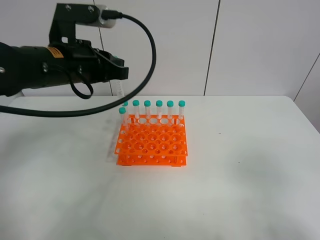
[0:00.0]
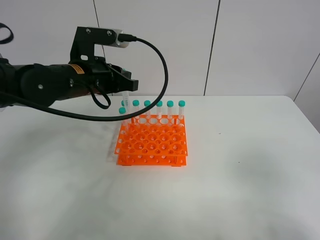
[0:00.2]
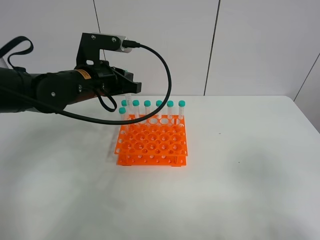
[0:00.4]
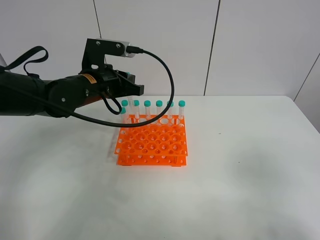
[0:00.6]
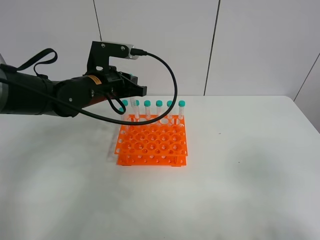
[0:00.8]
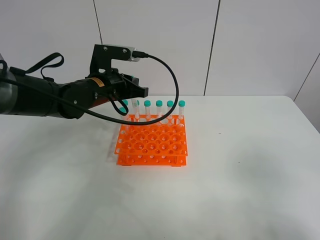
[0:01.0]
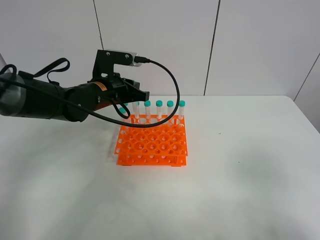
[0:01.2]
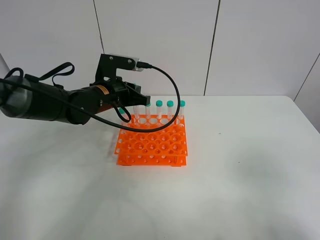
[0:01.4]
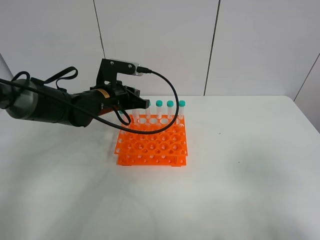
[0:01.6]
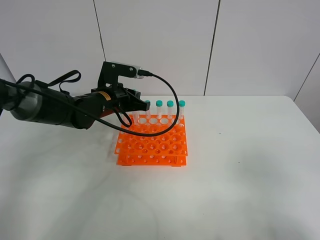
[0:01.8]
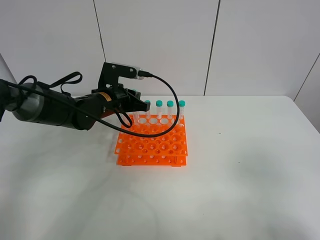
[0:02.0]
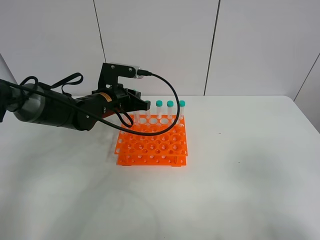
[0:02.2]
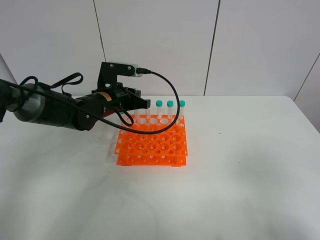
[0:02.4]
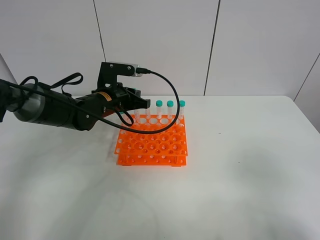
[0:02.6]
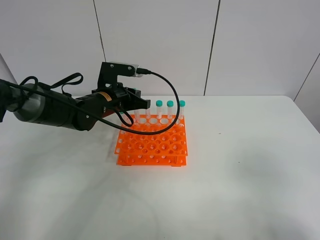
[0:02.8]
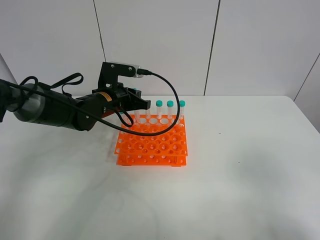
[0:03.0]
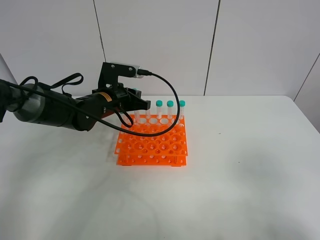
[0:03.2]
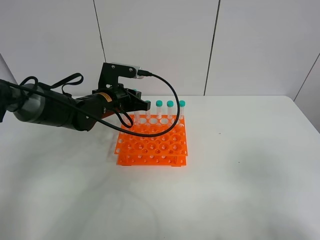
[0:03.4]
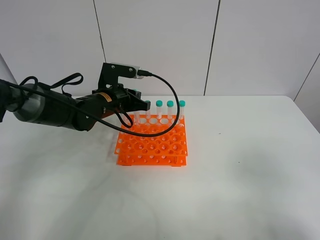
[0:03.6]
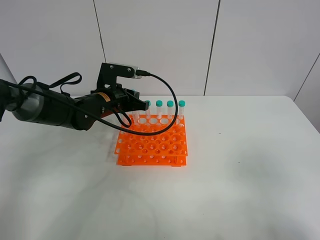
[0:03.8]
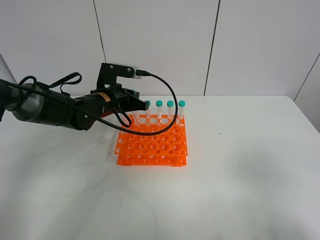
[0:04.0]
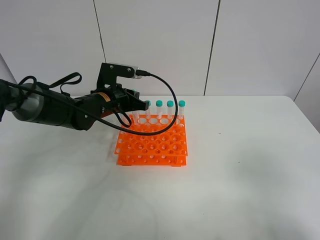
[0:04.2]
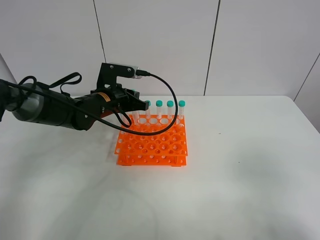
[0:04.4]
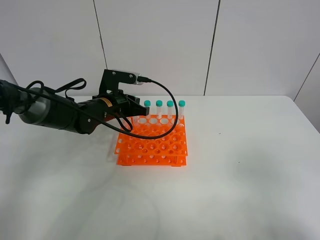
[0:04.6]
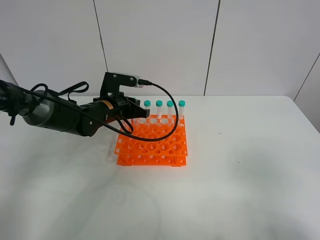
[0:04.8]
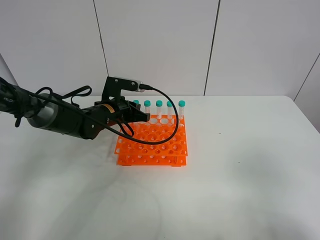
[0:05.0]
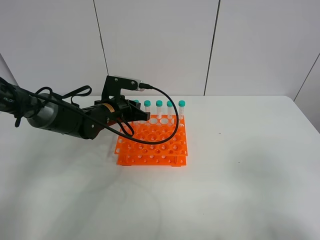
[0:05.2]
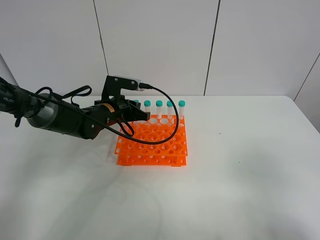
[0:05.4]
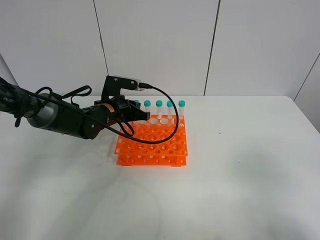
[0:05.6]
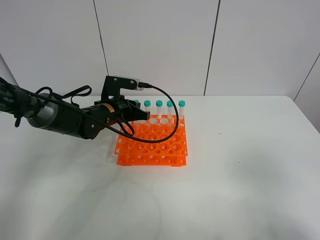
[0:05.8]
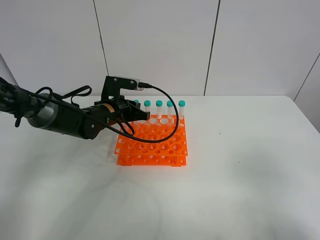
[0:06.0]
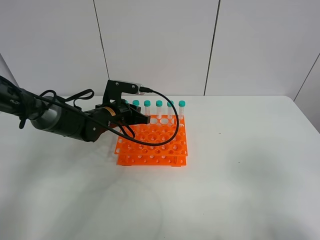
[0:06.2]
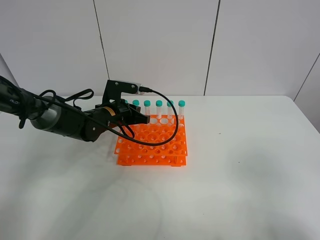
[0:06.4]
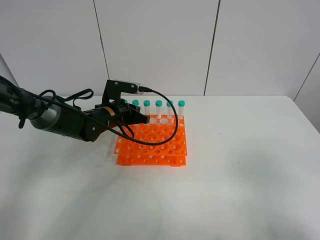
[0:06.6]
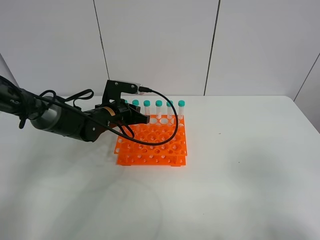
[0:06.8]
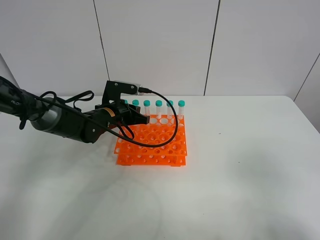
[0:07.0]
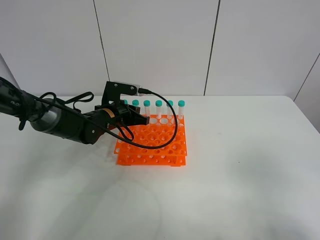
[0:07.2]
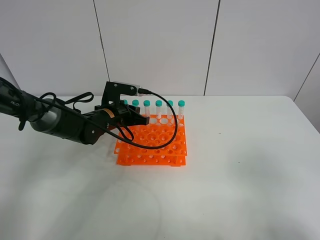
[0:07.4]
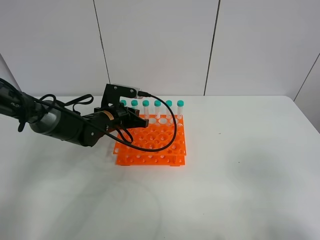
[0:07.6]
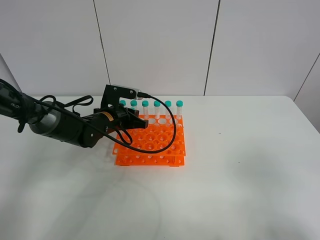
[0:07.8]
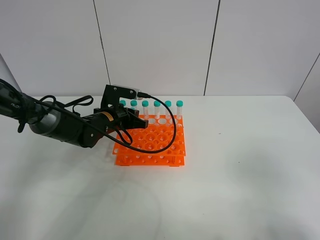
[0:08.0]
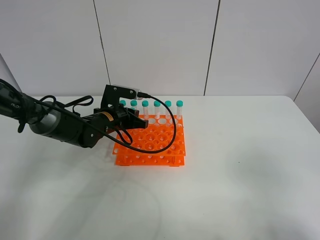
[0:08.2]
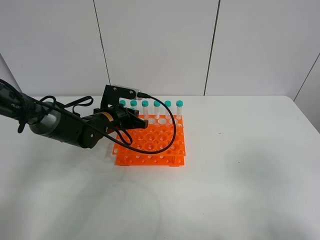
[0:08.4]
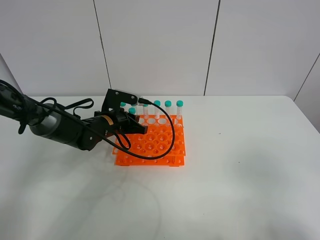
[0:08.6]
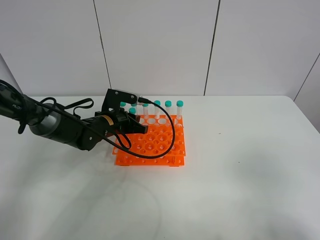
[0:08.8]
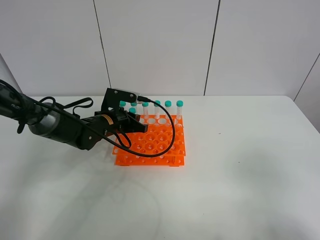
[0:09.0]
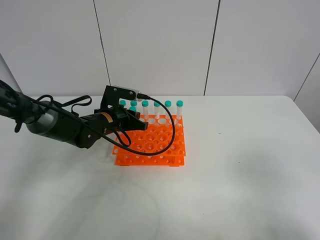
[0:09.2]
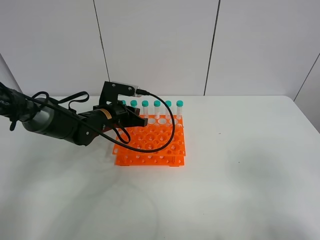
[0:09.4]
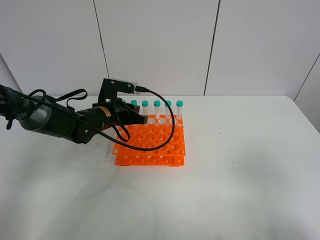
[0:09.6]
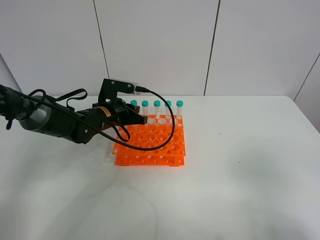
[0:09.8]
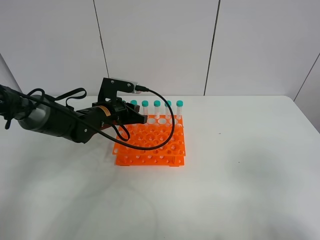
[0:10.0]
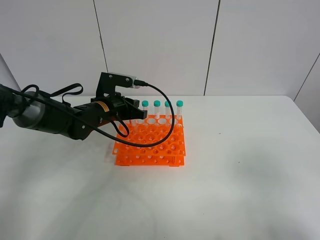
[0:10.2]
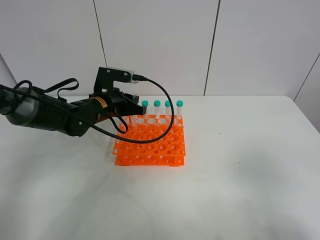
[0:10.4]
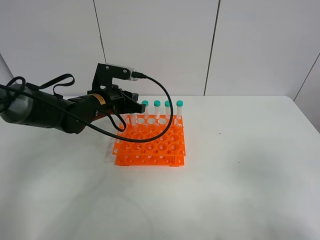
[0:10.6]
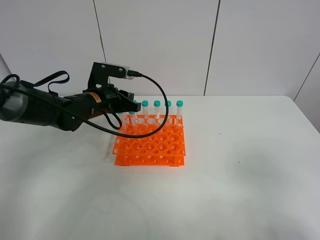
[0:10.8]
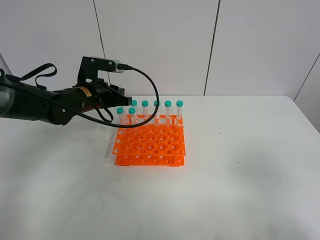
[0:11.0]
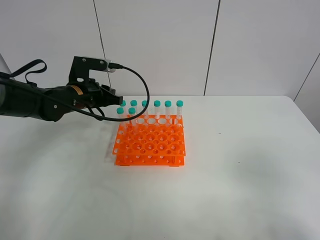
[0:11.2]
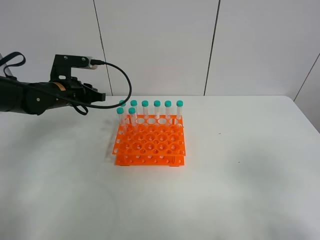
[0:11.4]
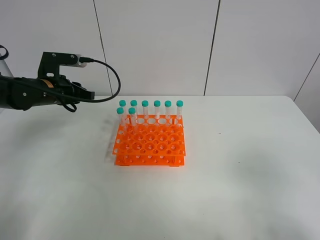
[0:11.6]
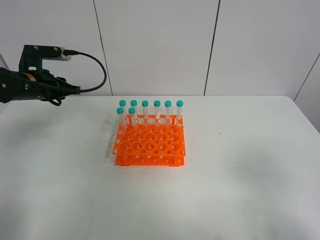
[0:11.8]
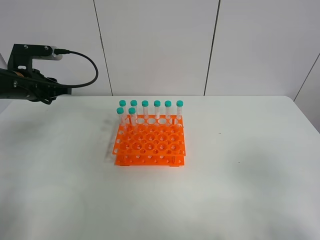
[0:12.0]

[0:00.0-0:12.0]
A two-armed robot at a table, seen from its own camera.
Task of the whole recording: Put the test tube on the table back onto the test tube rack.
Step, 0:00.0 to 0:11.4: Place the test tube on the test tube rack with the left gripper.
0:00.0 to 0:01.6: The left gripper shifts approximately 15 cm downward and forward.
0:01.6 to 0:04.4: Both grippers stay put.
0:04.4 to 0:07.6: The grippers move only a little.
0:07.6 to 0:09.0: The two grippers keep their place.
0:09.0 to 0:10.4: The left gripper shifts about 5 cm upward.
0:10.4 to 0:12.0: The left gripper goes some 15 cm to the left.

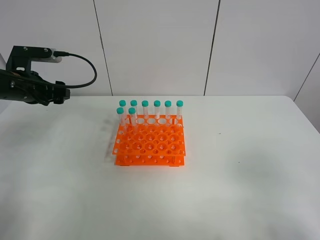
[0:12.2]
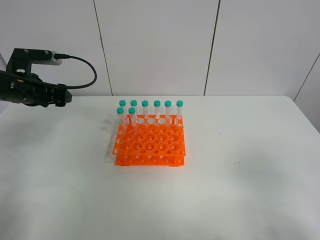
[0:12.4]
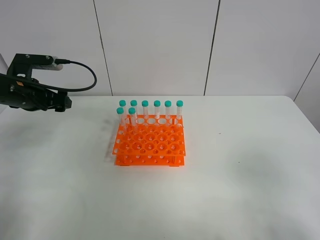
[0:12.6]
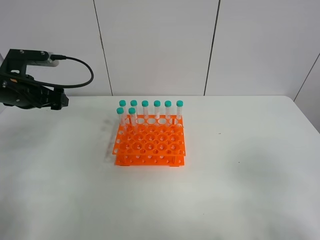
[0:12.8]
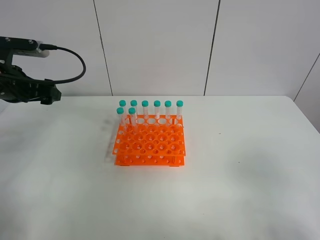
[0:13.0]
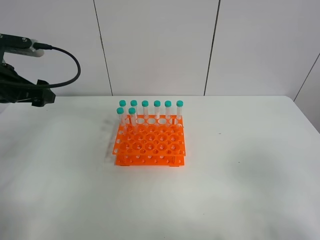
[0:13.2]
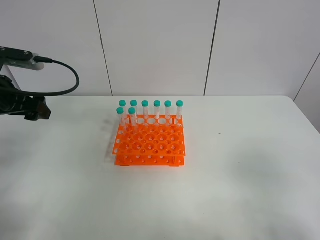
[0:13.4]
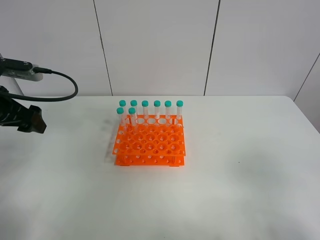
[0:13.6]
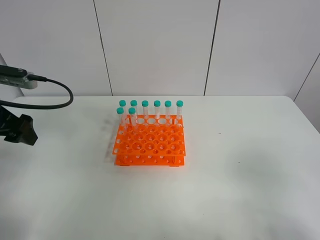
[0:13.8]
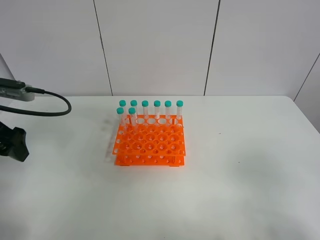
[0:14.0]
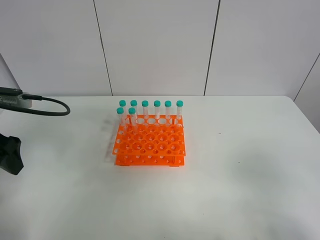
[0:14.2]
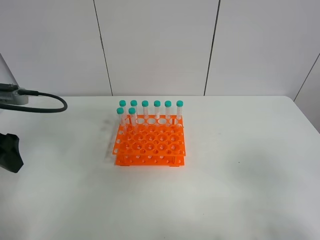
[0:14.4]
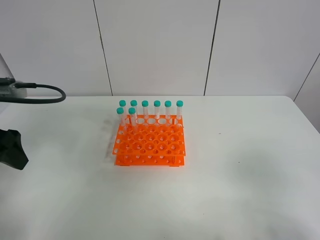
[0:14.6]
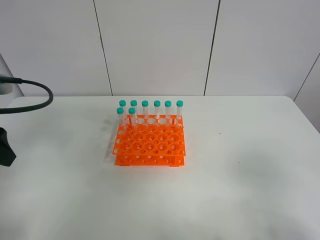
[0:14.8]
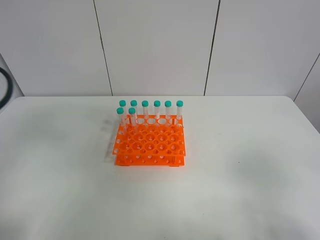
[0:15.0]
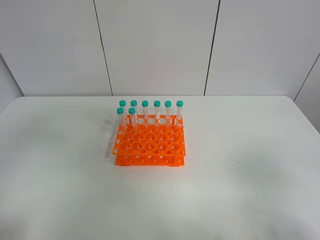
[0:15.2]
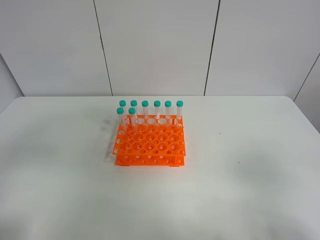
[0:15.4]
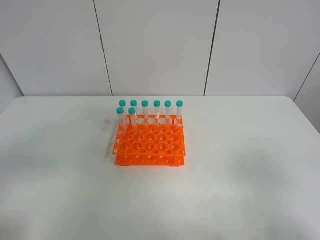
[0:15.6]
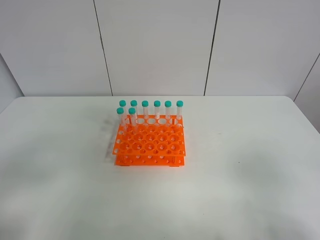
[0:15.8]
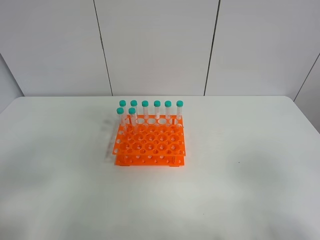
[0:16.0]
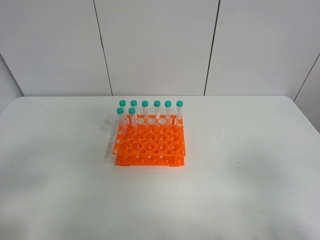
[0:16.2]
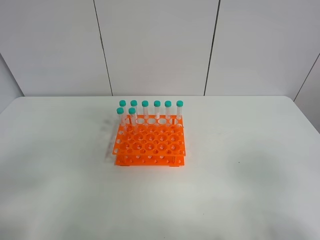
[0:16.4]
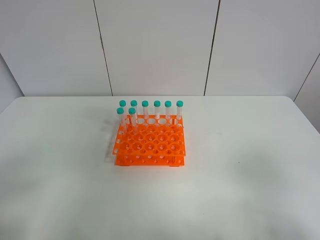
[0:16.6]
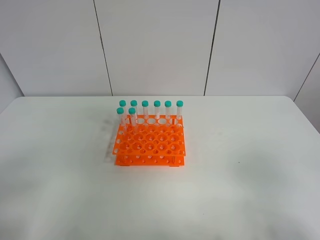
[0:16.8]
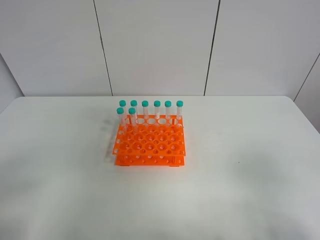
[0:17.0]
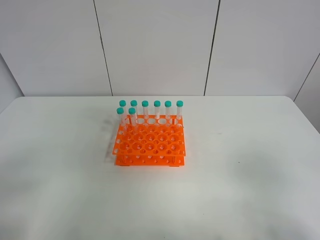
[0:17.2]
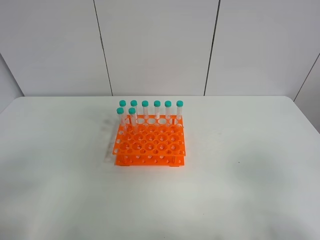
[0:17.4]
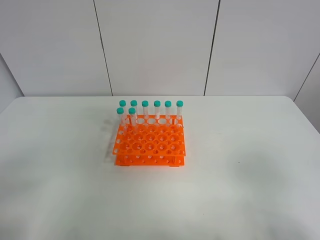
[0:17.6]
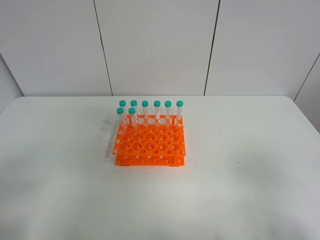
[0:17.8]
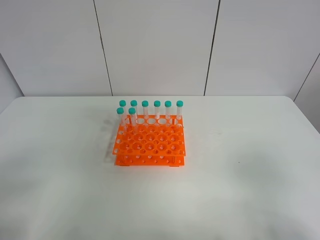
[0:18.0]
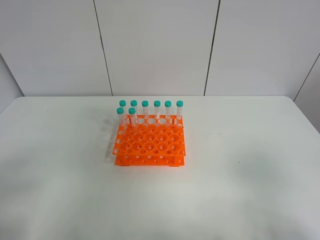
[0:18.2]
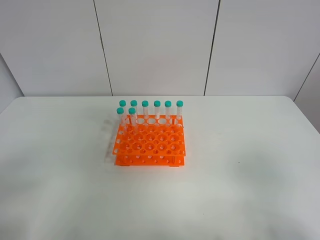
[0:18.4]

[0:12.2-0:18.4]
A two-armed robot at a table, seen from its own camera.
Task of the whole recording: Put the test tube on the table back onto the test tube rack.
0:12.2 to 0:13.8: The left gripper is displaced backward by about 10 cm.
0:13.8 to 0:15.4: The left gripper moves backward, some 20 cm.
0:16.8 to 0:18.4: Neither gripper changes place.

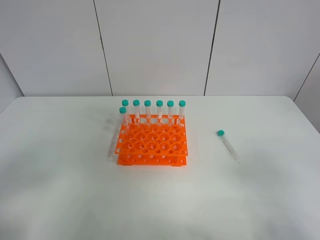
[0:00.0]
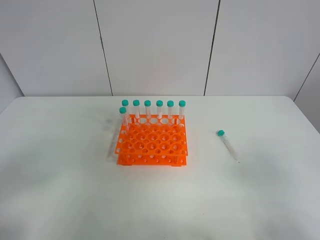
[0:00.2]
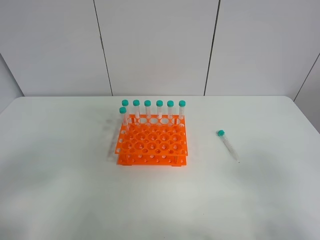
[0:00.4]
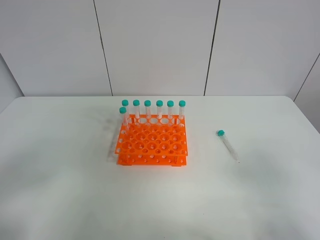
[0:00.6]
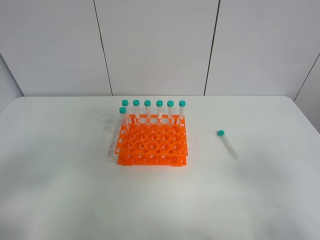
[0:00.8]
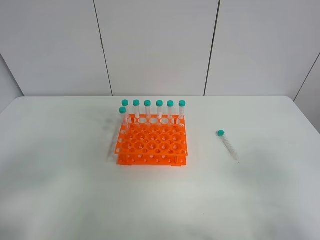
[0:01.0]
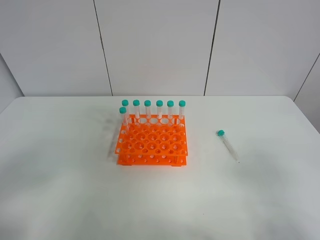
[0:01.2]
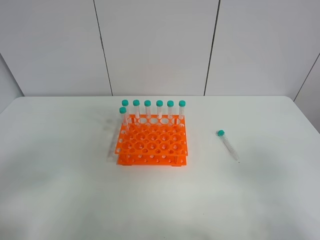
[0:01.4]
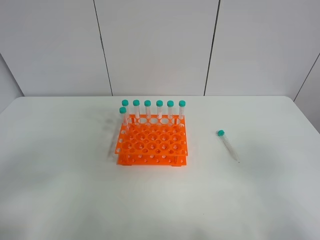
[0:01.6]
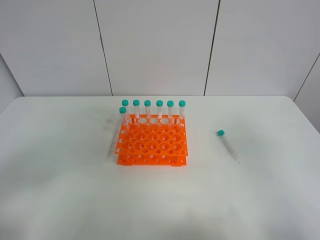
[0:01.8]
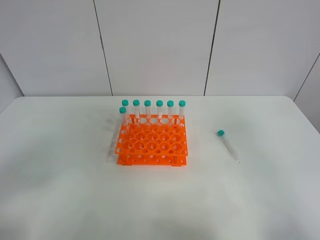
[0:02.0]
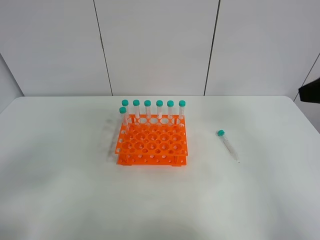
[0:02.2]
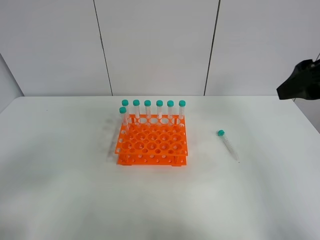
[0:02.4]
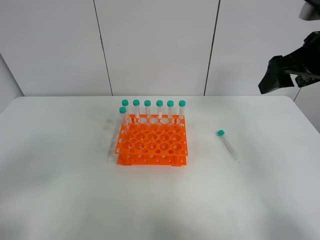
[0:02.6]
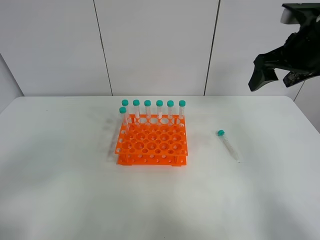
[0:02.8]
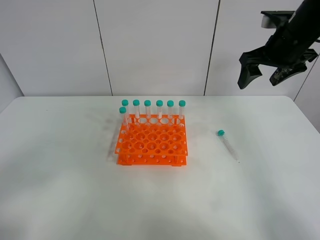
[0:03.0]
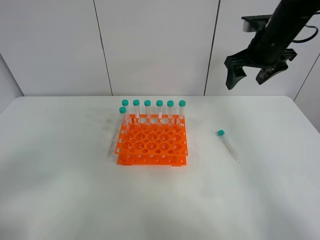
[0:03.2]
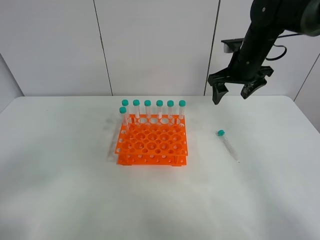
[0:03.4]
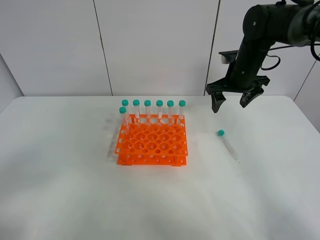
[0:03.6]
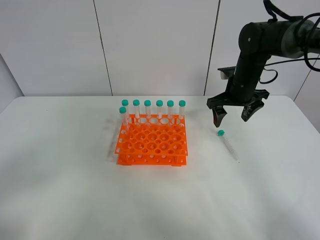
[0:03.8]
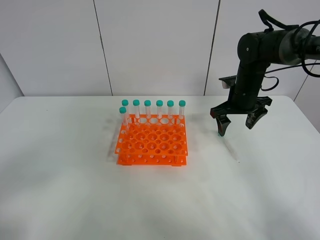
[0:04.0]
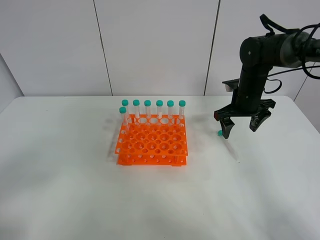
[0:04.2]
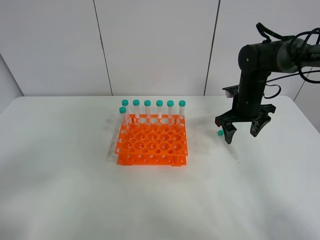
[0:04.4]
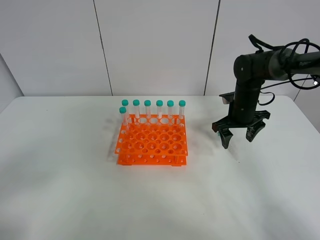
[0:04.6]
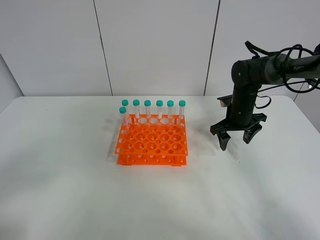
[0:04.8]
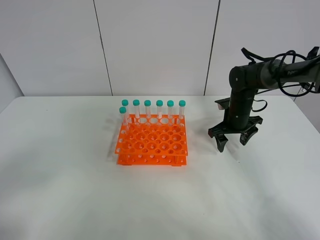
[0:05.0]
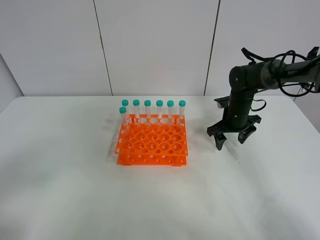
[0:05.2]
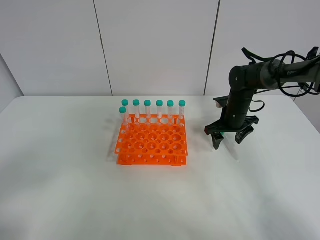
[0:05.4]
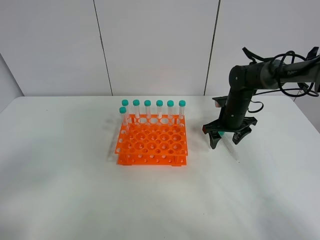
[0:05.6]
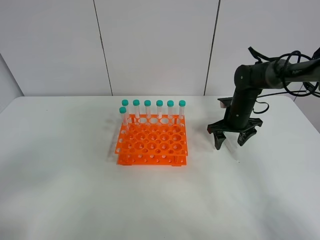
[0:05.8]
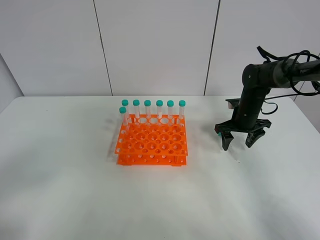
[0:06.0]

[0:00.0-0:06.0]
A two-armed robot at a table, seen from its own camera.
Task of the whole recording: Put the test tube on the table back onto the test tube rack.
0:01.6 to 0:03.0: The right gripper shifts roughly 35 cm forward.
0:03.0 to 0:04.4: The right gripper travels downward by about 15 cm.
0:04.4 to 0:06.0: The right gripper goes some 5 cm downward.
